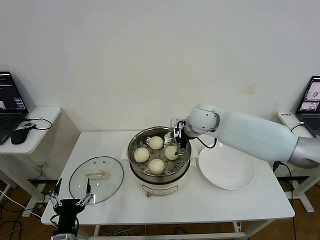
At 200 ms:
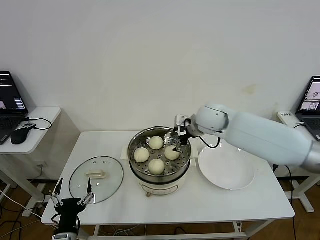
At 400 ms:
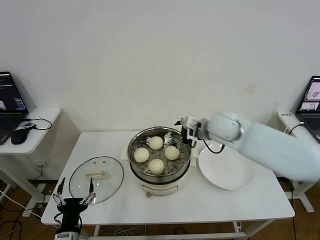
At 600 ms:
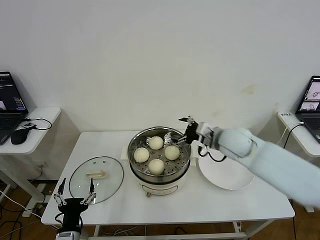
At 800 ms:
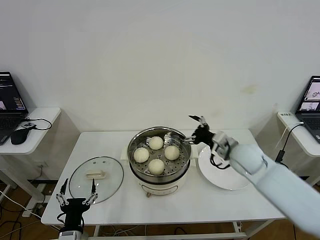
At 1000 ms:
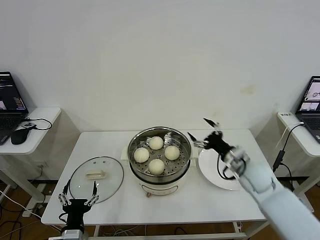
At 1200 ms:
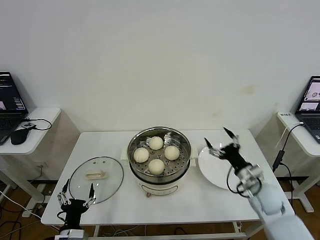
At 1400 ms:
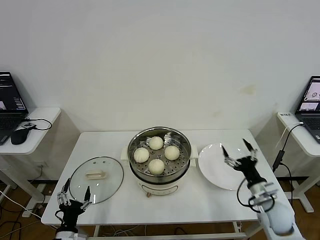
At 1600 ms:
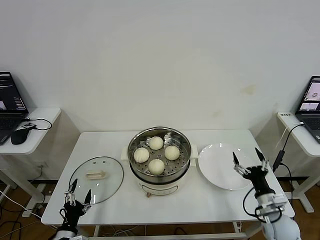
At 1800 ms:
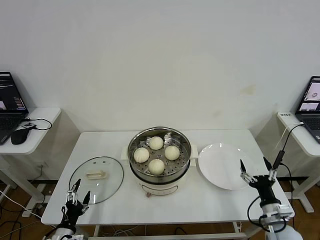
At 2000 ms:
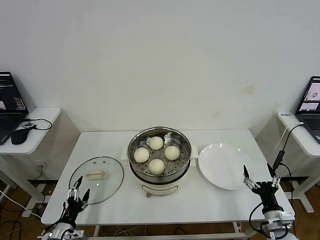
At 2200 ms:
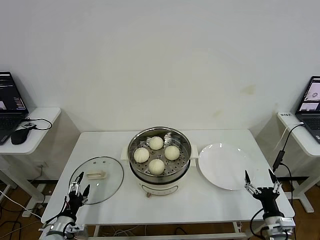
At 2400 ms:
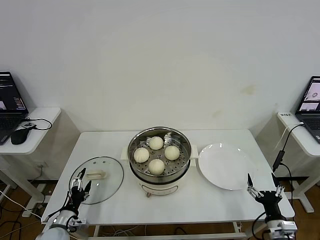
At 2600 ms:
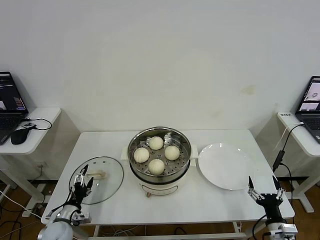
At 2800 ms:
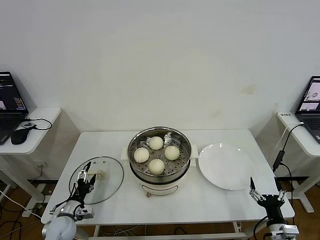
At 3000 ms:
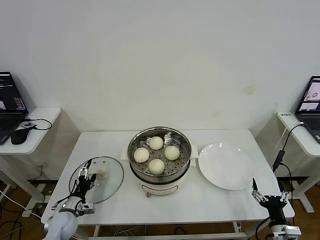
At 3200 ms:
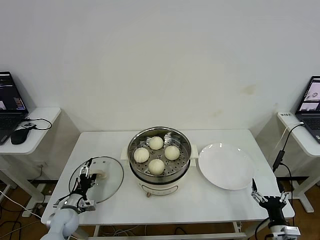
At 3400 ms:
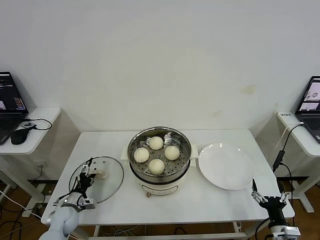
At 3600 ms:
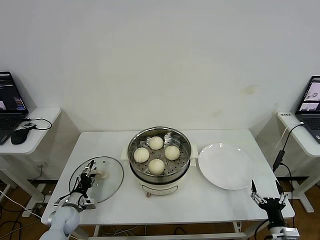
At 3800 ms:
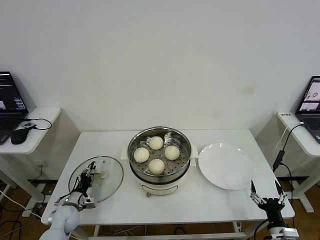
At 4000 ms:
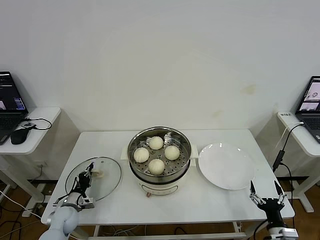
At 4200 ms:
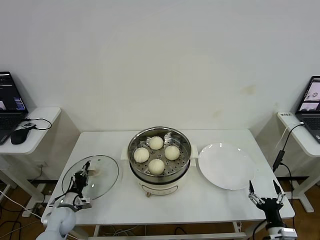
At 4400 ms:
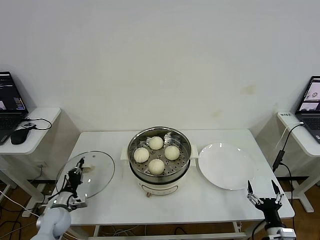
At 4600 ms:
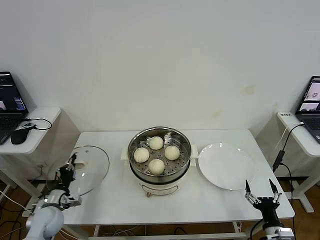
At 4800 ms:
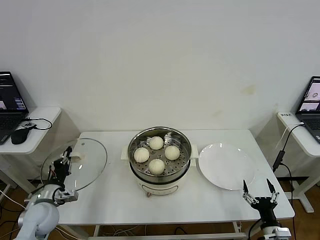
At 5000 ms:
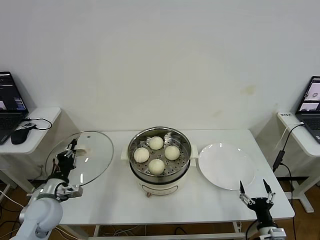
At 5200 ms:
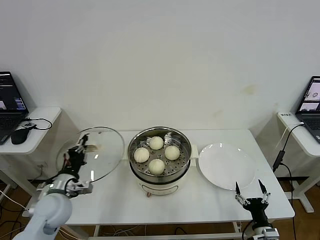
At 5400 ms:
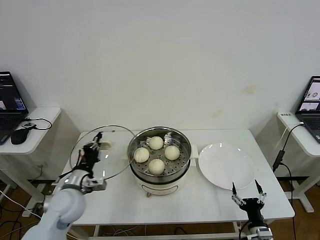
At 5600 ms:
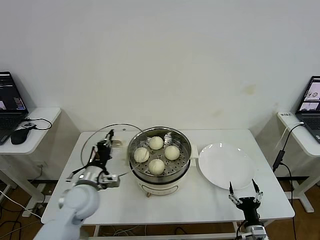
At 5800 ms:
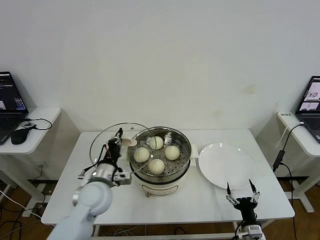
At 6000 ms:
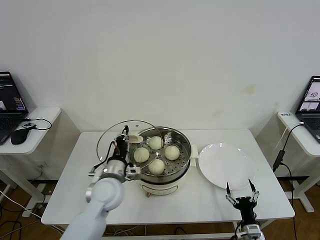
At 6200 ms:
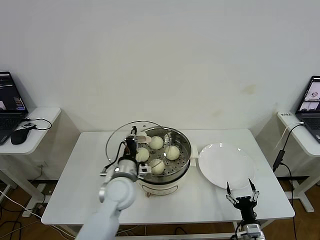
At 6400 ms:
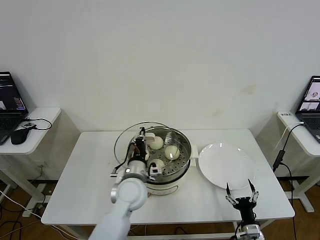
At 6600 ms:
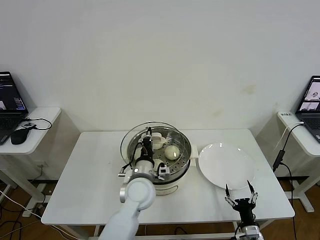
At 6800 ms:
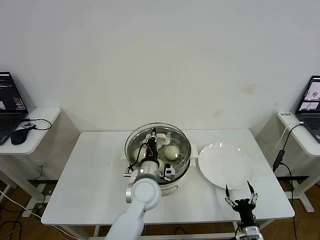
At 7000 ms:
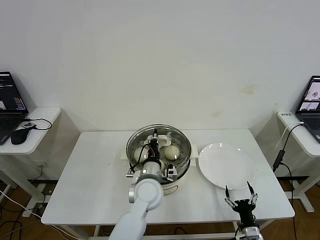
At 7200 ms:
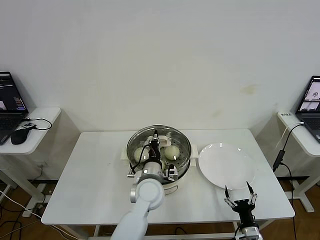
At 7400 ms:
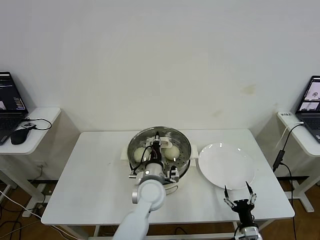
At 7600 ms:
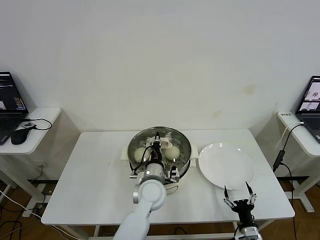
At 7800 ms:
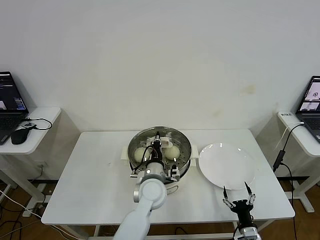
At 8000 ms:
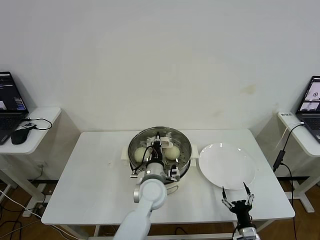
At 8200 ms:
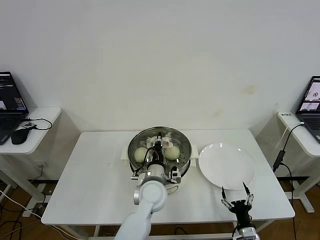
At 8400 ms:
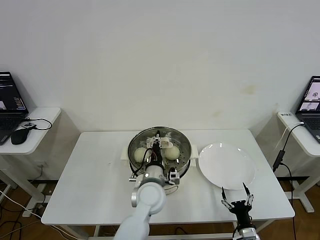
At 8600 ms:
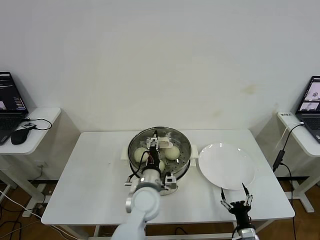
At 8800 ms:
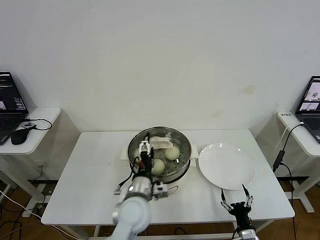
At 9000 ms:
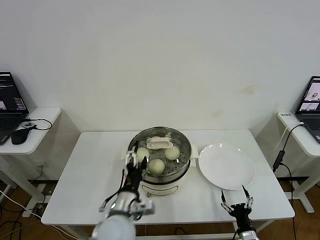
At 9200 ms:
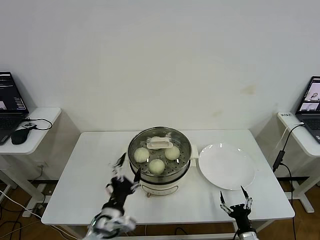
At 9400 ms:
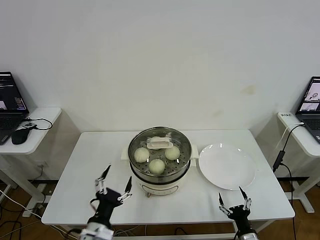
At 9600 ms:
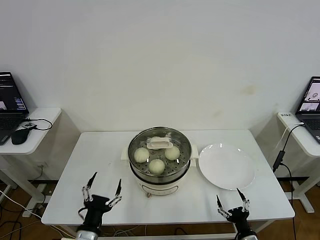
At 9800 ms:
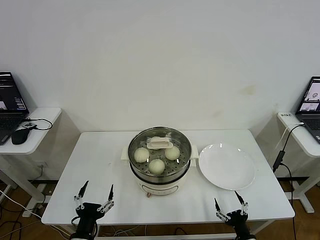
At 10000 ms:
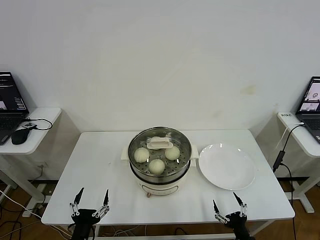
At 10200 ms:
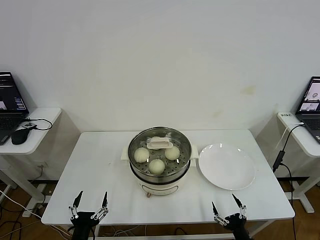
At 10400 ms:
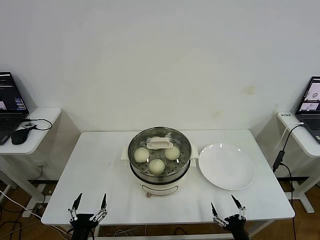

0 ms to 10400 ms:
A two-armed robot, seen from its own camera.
Step, 0 ms to 4000 ms: Grasp the pot lid with left gripper.
Step, 4200 ms to 8400 ms: Place the pot lid on the steamer with left gripper.
0 ms to 1400 ms: The right gripper moves backward, to the right and downward, some 35 cm. The left gripper heads downward, covering some 5 cm.
1400 ms to 3000 ms: The left gripper goes about 15 cm forward and to the left; the right gripper is displaced backward and downward by some 15 cm.
3000 ms to 4400 ms: The left gripper closes up.
4400 ms to 6000 ms: The left gripper heads to the right and upward, covering approximately 30 cm. Meanwhile the right gripper heads to the left, covering some 5 cm.
6000 ms to 7400 ms: The left gripper is displaced to the right by roughly 15 cm.
7400 ms to 9000 ms: The left gripper travels backward and to the left by roughly 10 cm, and opens up.
9000 ms to 10400 ms: The right gripper ends up roughly 5 cm from where it was; the left gripper moves to the left, backward and downward, some 25 cm.
